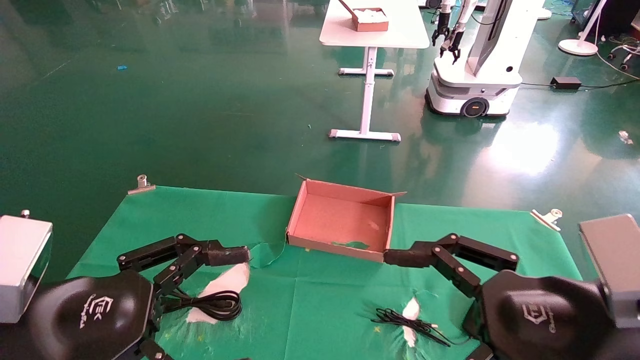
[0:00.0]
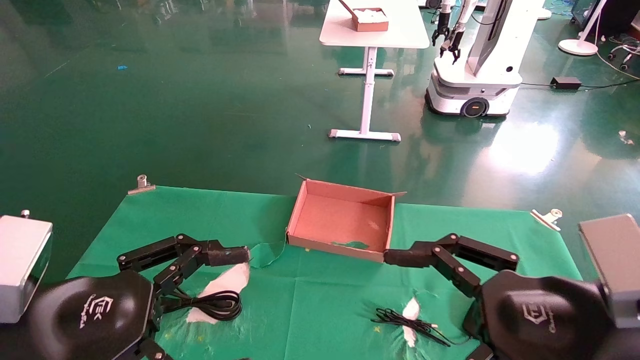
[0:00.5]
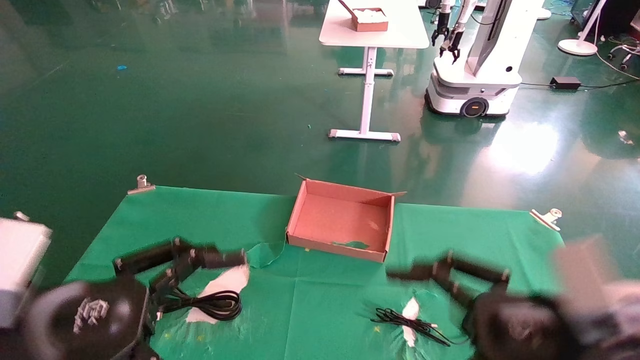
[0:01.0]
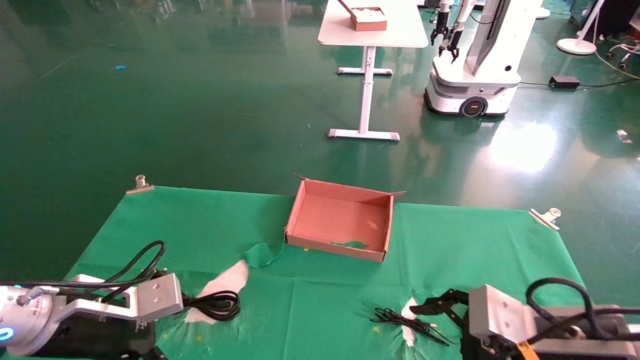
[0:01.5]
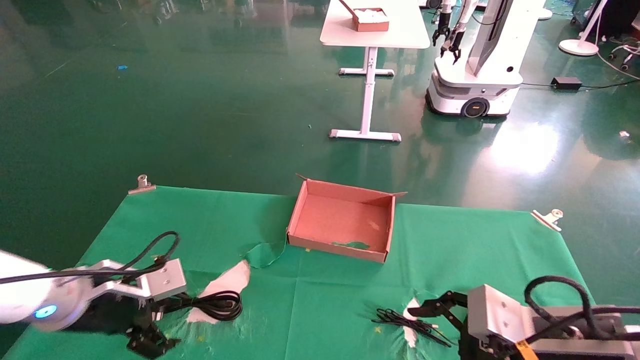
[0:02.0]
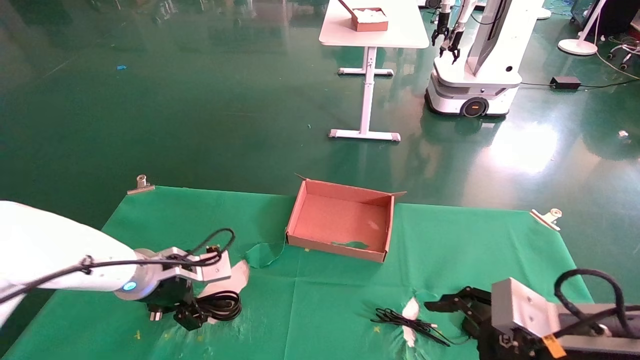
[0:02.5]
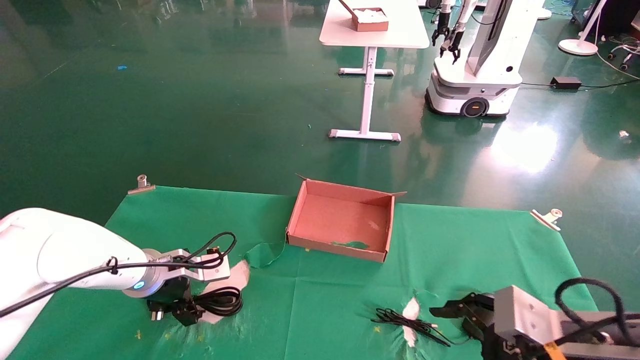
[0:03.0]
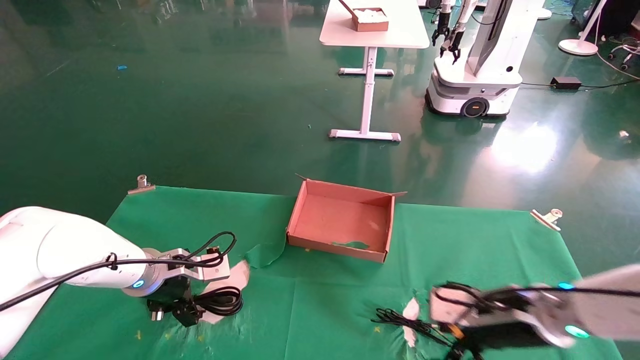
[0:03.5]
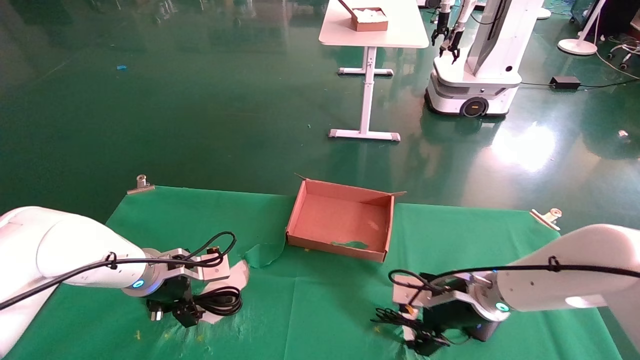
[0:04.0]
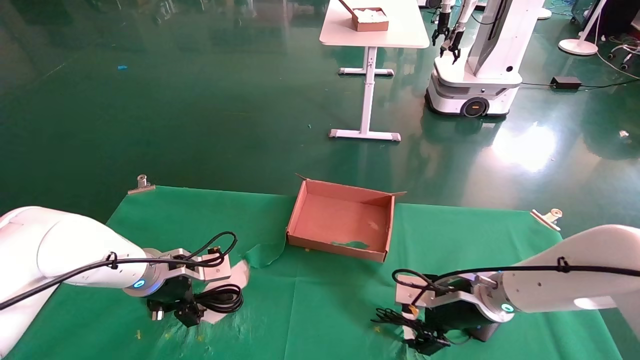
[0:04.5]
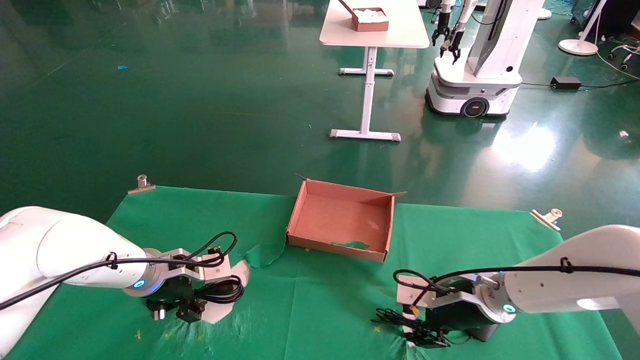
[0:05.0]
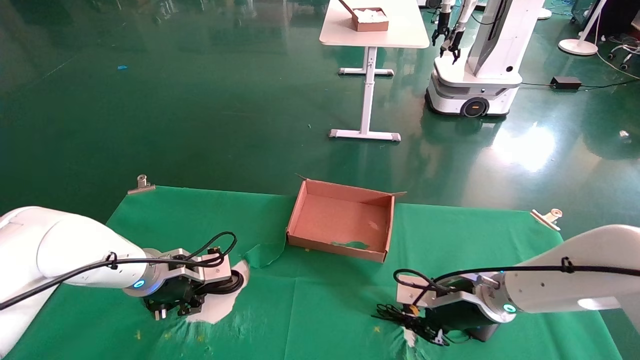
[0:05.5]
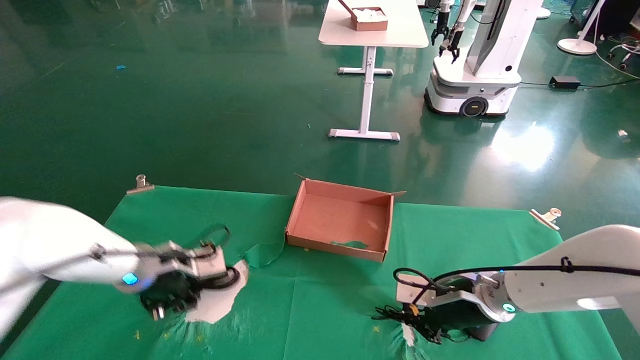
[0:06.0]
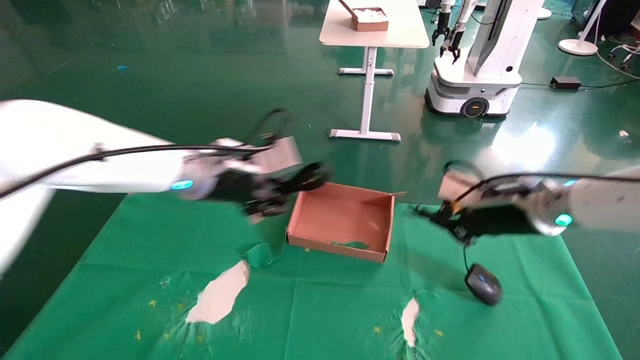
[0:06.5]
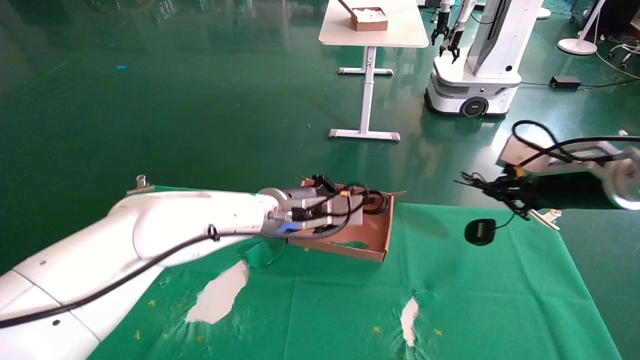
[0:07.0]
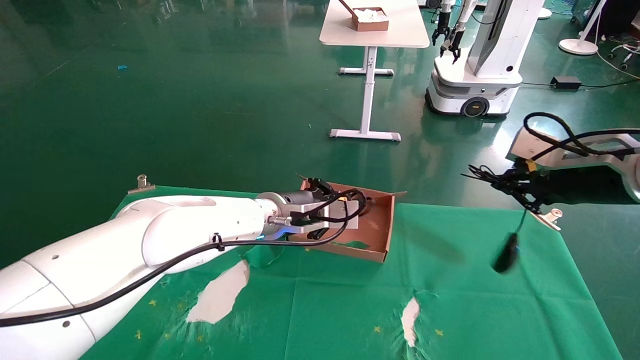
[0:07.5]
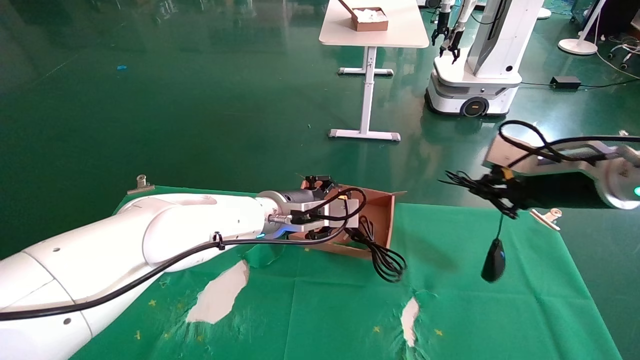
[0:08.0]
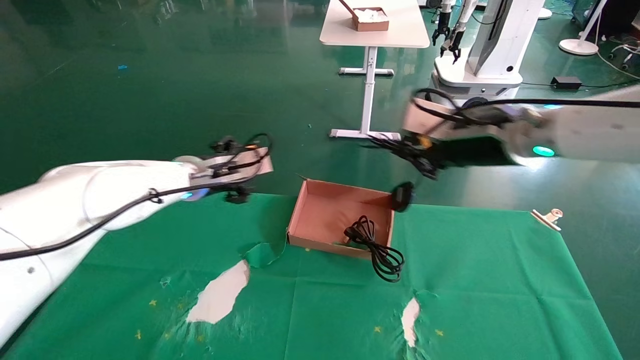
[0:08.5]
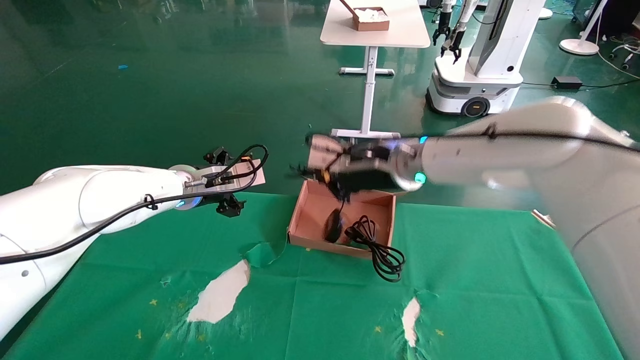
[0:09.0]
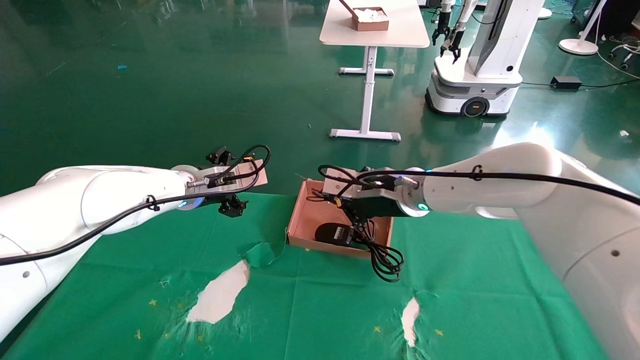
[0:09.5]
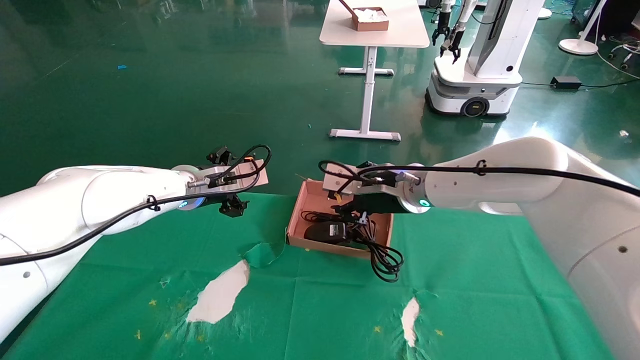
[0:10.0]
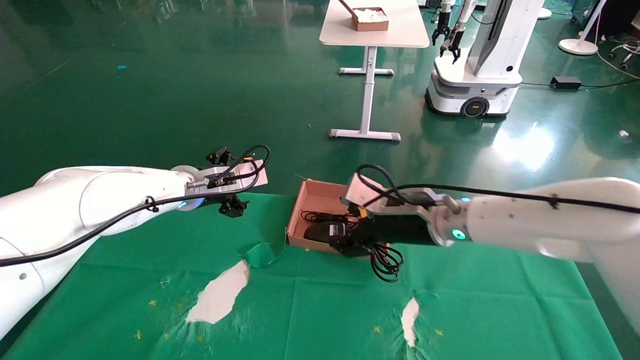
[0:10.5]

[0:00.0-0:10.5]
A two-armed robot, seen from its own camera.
Step, 0:02.0 to 0:05.5: Grab and lift both the mouse and power cord from the accessory packaging area at the same time.
Step, 0:06.0 to 0:10.5: Place the mouse and power cord into the box.
0:00.0 to 0:02.0: The right gripper goes approximately 10 cm downward and forward. Meanwhile the left gripper goes about 15 cm forward and downward.
0:02.0 to 0:04.0: The left gripper moves forward, some 10 cm. Meanwhile the right gripper travels forward by about 15 cm.
0:04.0 to 0:06.5: Both grippers move upward and to the right, roughly 15 cm. The right gripper closes its fingers, while the left gripper closes its fingers.
0:06.5 to 0:08.5: The right gripper goes some 15 cm upward and to the left, while the left gripper travels forward by some 5 cm, goes to the right and returns, about 10 cm each way, and opens up.
0:08.5 to 0:10.5: The right gripper shifts about 15 cm downward and to the left, and opens.

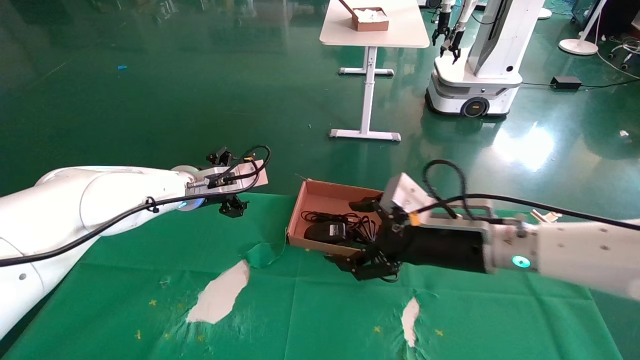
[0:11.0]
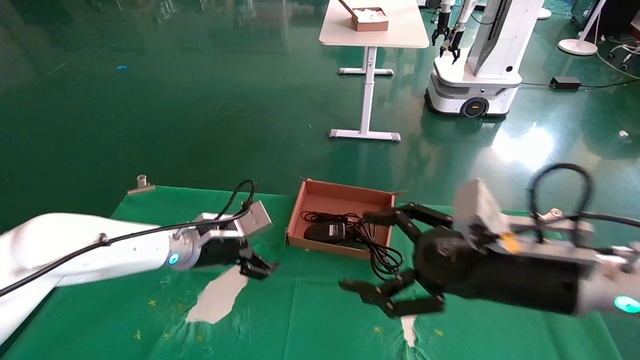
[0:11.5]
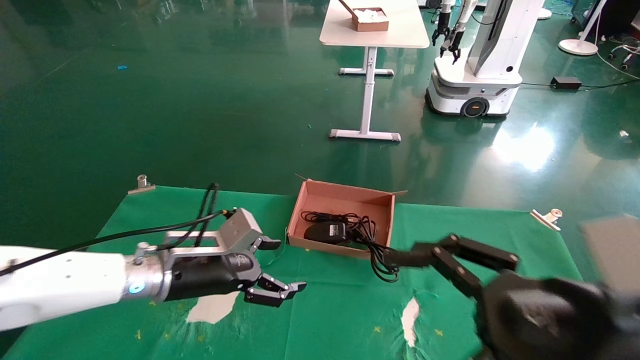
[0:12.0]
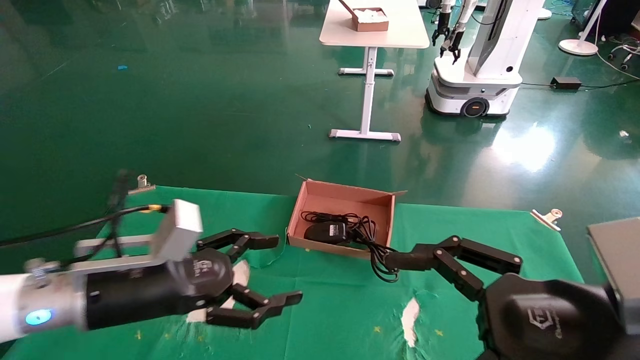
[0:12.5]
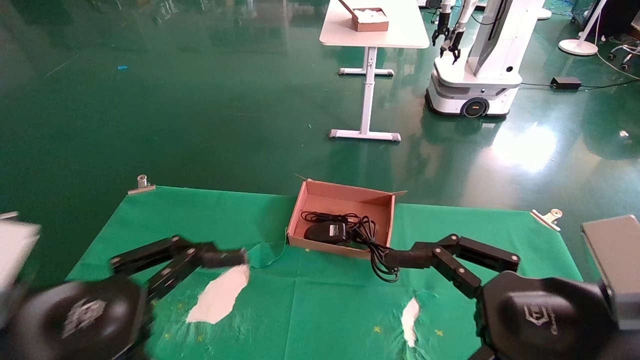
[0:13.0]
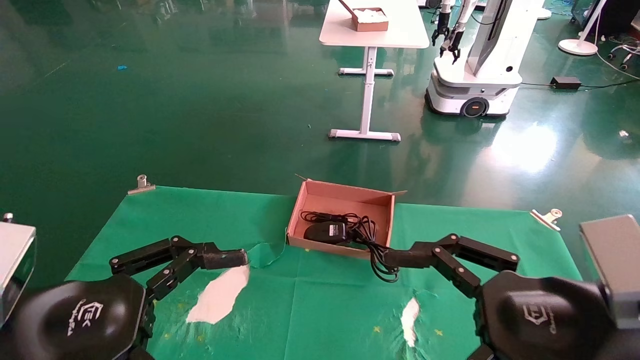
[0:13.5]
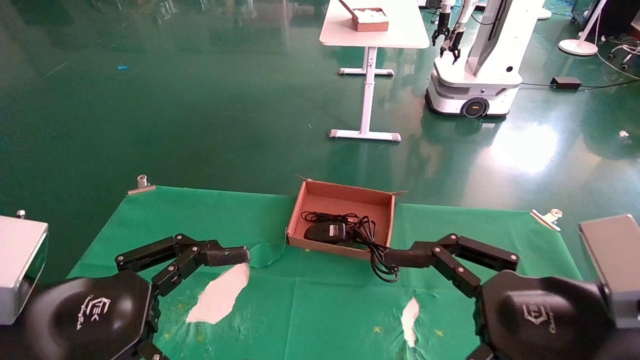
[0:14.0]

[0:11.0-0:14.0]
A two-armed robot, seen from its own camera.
0:11.0 to 0:12.5: Both grippers travel together backward, some 20 cm.
0:12.5 to 0:14.0: The left gripper shifts roughly 10 cm backward.
